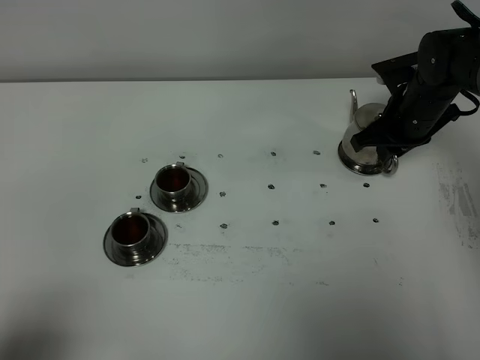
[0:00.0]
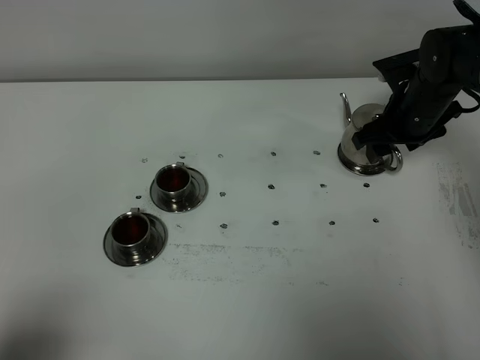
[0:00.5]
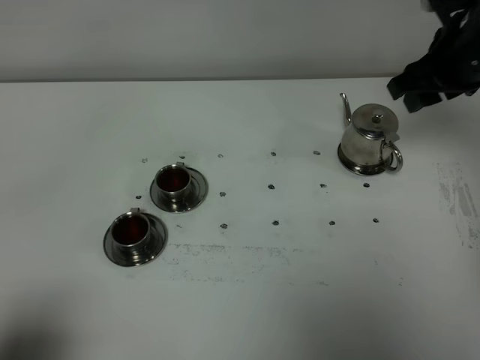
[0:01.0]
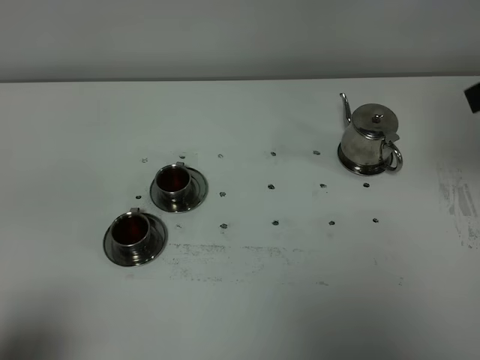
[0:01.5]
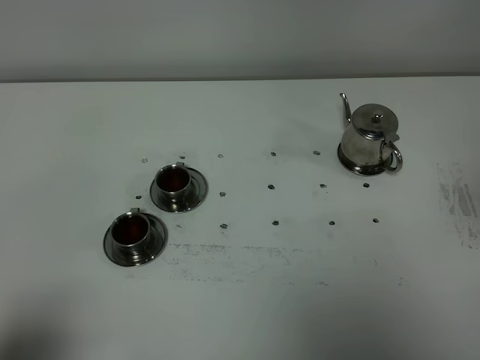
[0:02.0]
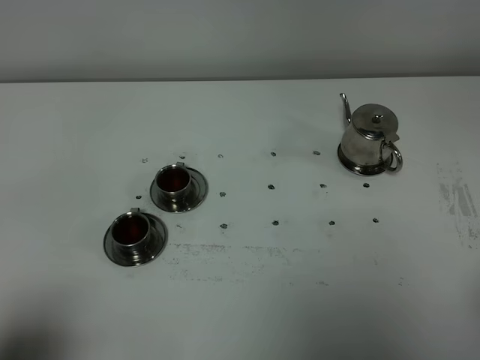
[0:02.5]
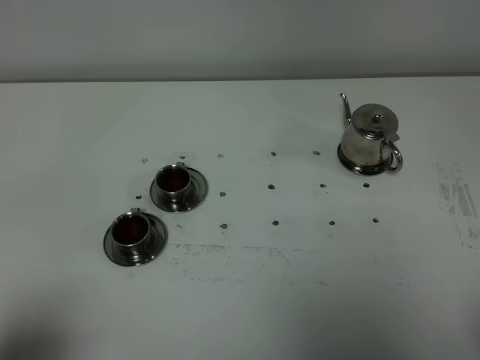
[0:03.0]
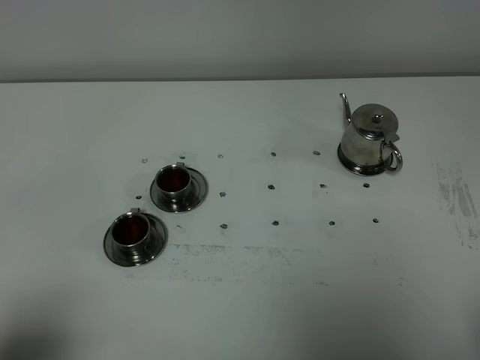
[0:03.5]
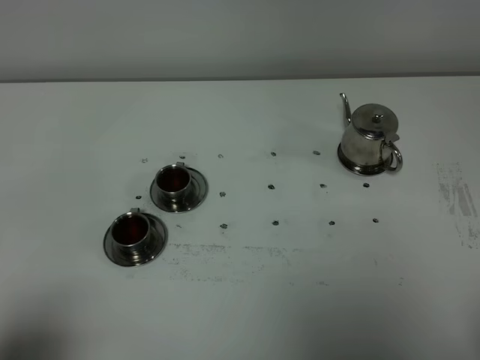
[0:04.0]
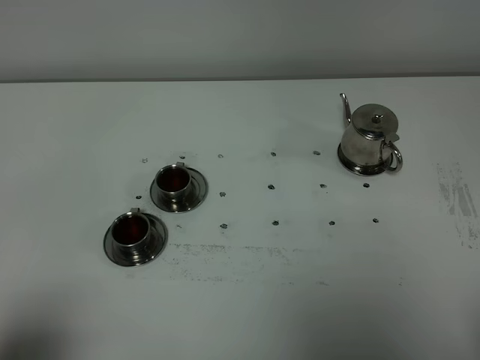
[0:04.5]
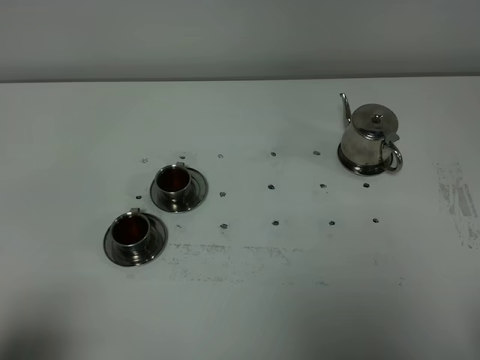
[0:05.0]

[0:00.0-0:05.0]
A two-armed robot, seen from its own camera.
Task of the whole recording: grasp the stainless steel teapot and pour the tea into the two stainless steel teacups one by one, put the stainless steel teapot back in its original place.
0:00.0 to 0:02.5: The right gripper shifts about 50 cm backward and upward, and opens and closes again.

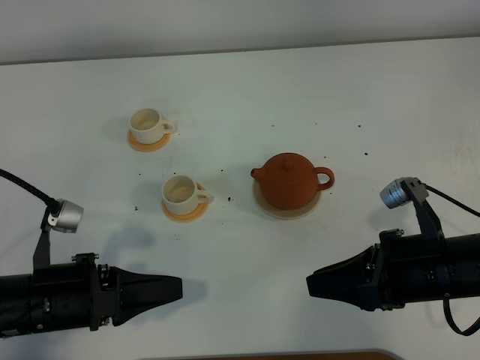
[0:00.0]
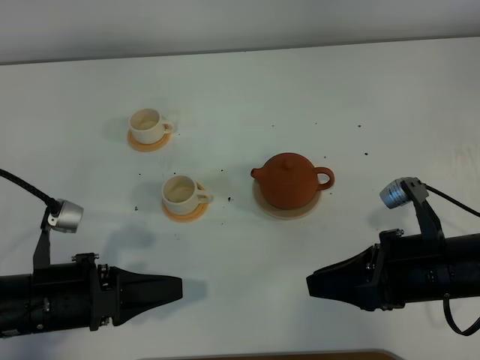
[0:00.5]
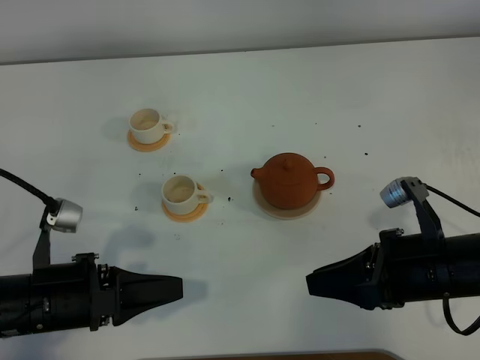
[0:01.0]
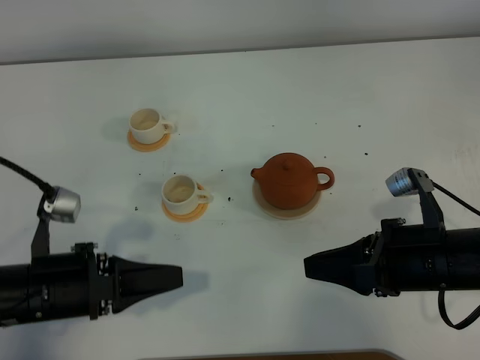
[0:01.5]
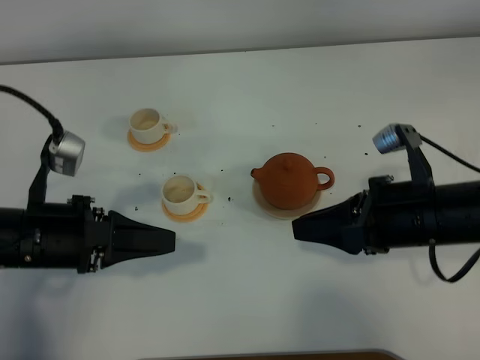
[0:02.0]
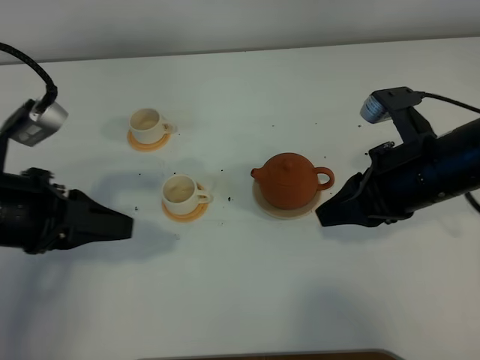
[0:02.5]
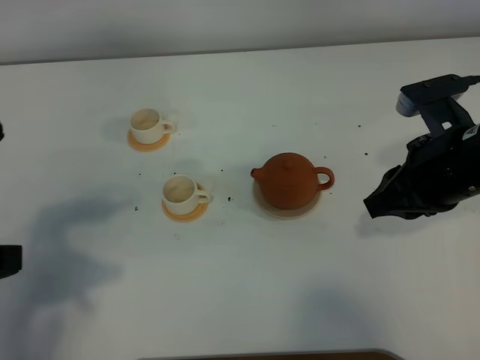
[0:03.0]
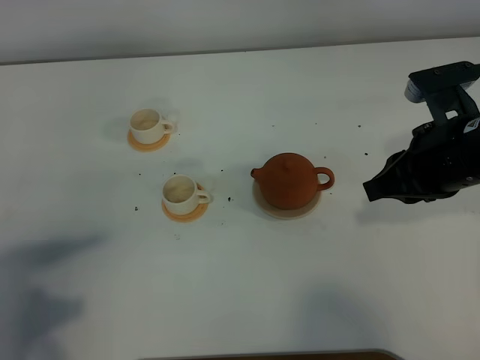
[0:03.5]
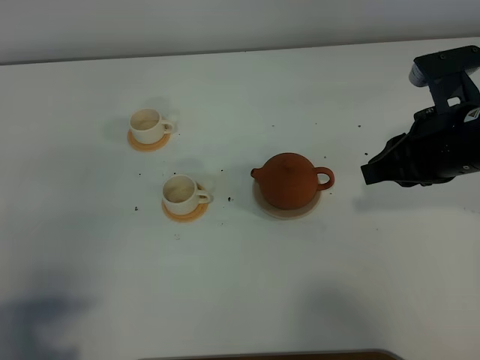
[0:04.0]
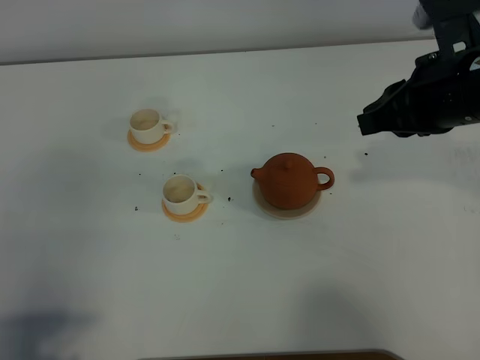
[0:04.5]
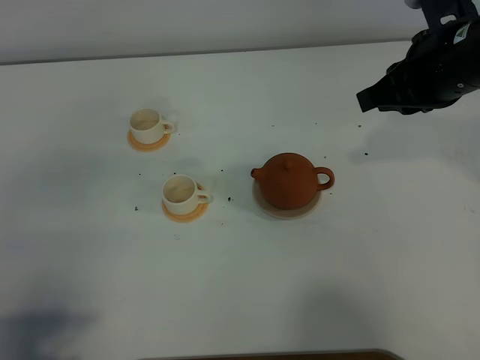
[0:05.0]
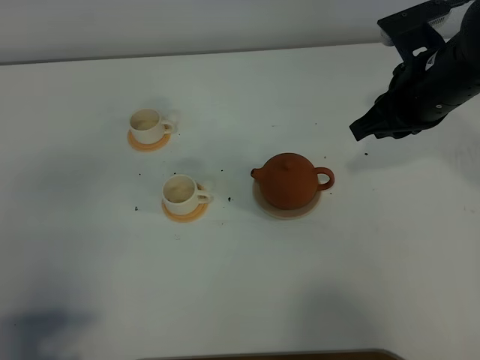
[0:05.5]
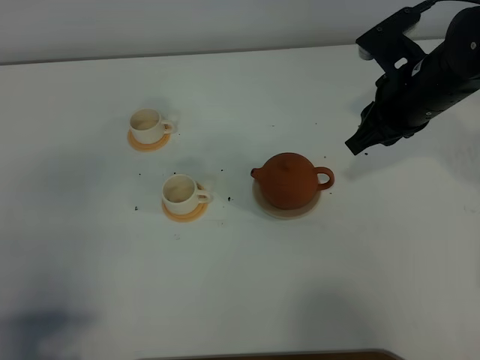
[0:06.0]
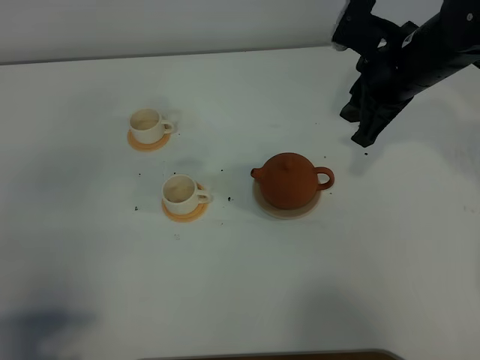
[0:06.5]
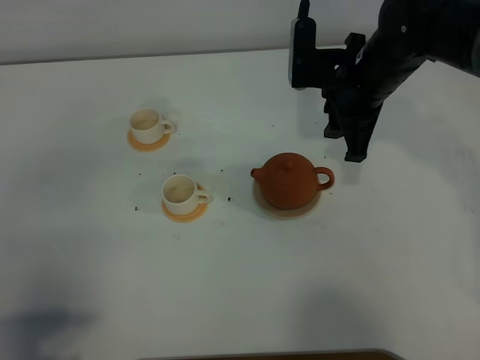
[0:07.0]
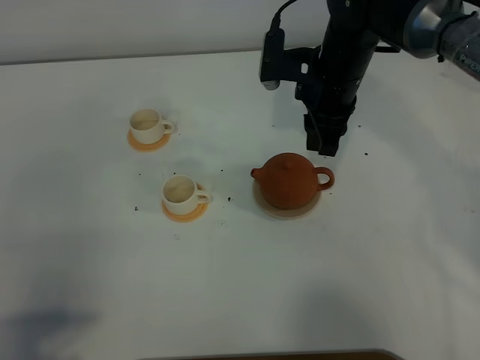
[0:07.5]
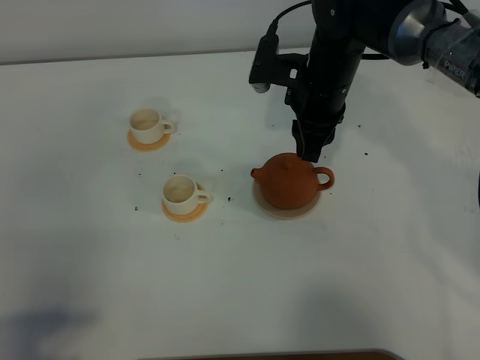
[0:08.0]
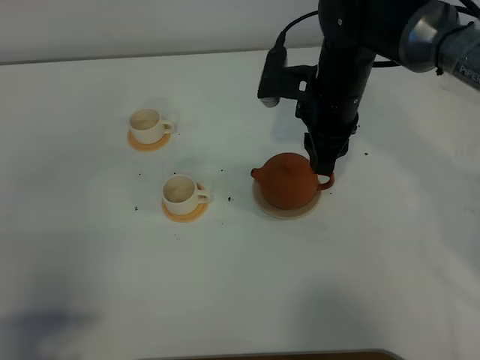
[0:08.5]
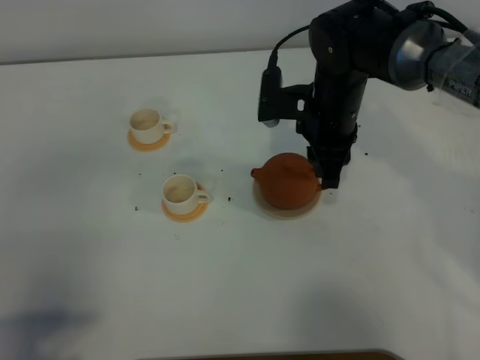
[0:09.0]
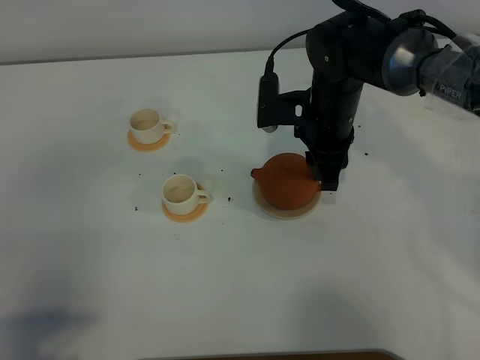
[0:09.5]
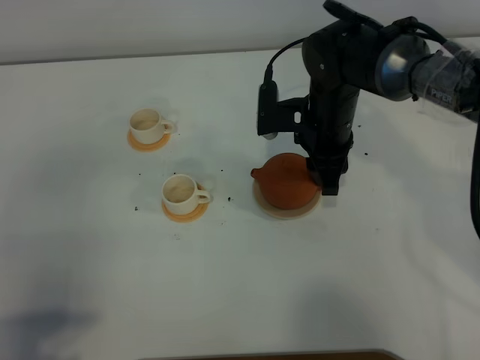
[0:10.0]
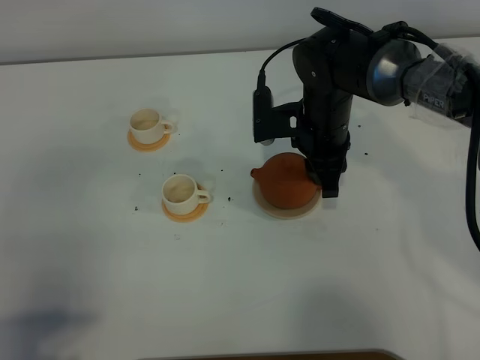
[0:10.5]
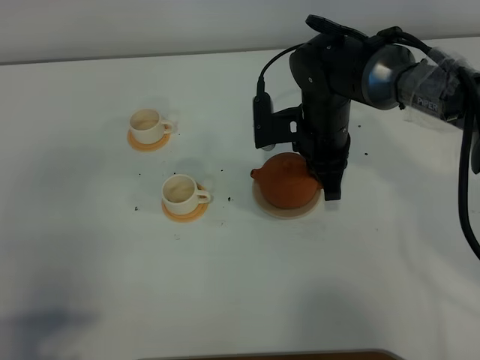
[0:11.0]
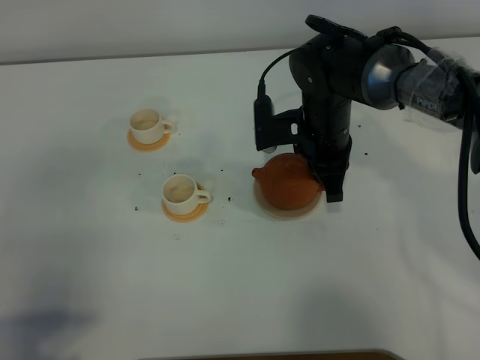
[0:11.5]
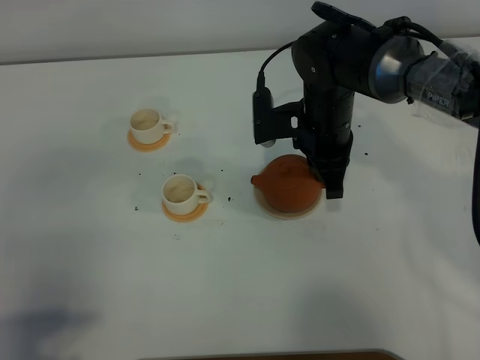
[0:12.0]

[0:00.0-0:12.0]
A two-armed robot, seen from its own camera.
Task of the whole recording: grasp the brown teapot and pour the tea into the two white teacups one by one, put the brown teapot back in its original place.
0:00.0 to 0:02.0: The left gripper goes about 5 cm forward; the right gripper moves about 5 cm.
0:02.0 to 0:04.0: The right gripper goes about 10 cm forward and upward. The left gripper goes approximately 20 cm backward and upward.
0:04.0 to 0:06.0: The right gripper travels forward by about 10 cm.
0:06.0 to 0:08.0: The right gripper travels to the left by about 10 cm.
0:08.0 to 0:10.0: There are only small adjustments of the grippers.
0:10.0 to 0:12.0: The right gripper closes its fingers.

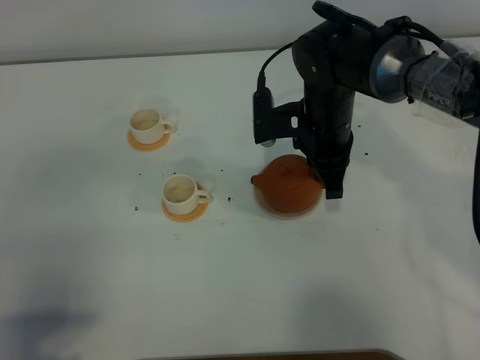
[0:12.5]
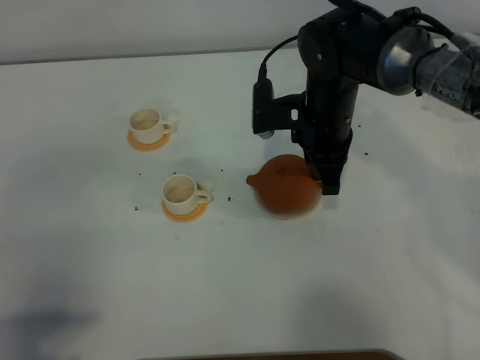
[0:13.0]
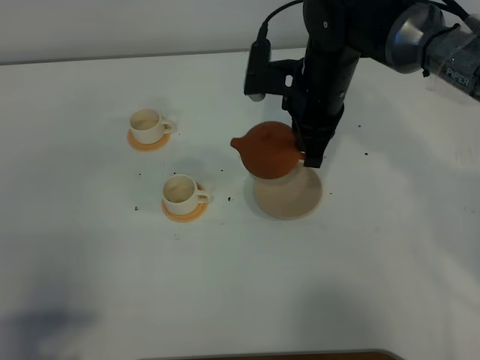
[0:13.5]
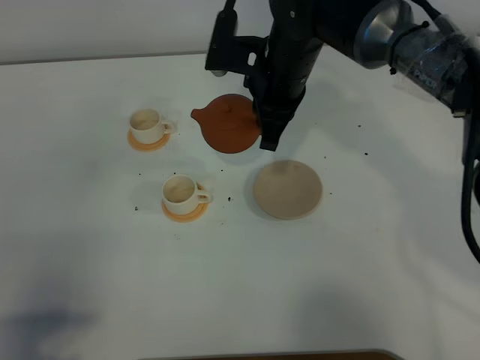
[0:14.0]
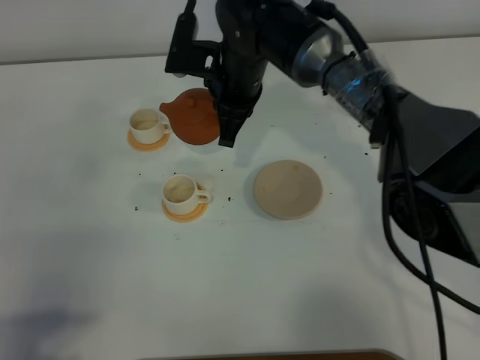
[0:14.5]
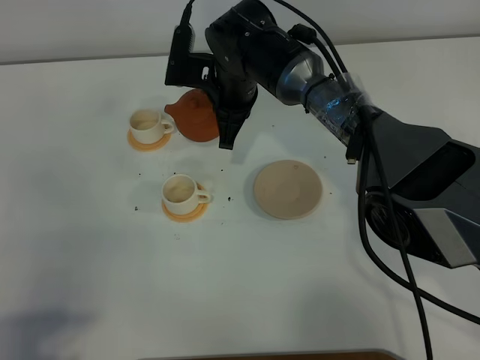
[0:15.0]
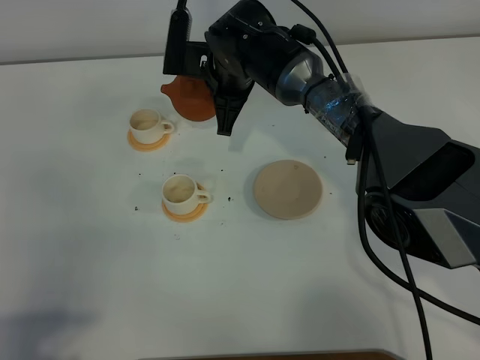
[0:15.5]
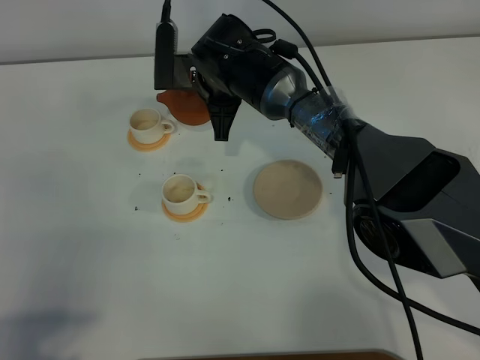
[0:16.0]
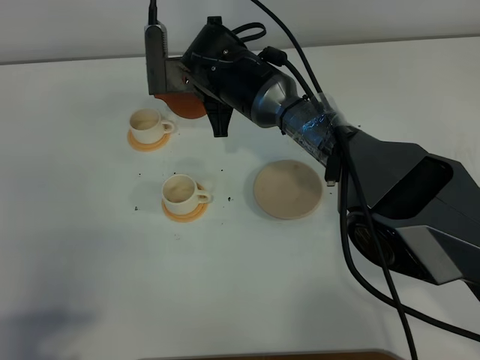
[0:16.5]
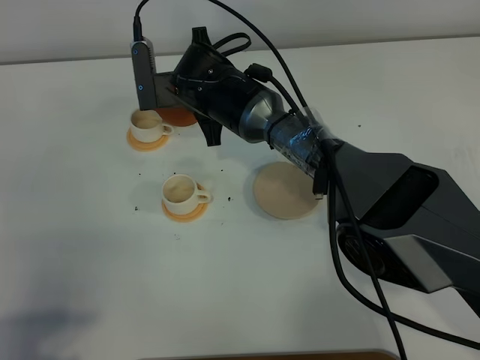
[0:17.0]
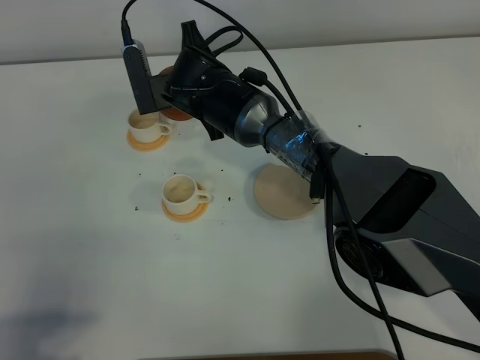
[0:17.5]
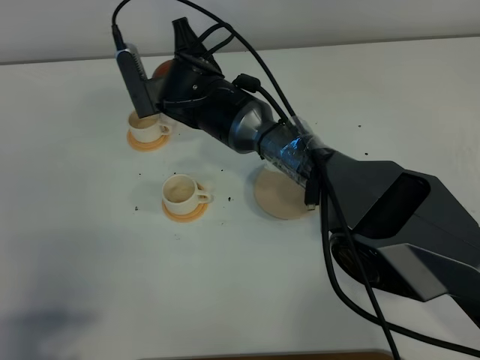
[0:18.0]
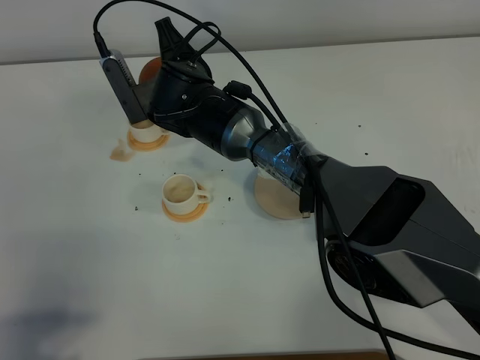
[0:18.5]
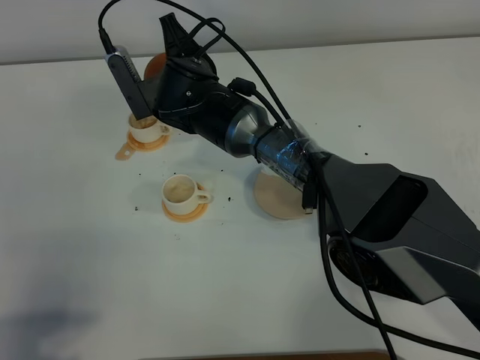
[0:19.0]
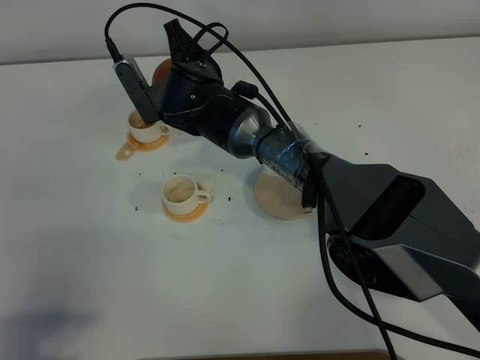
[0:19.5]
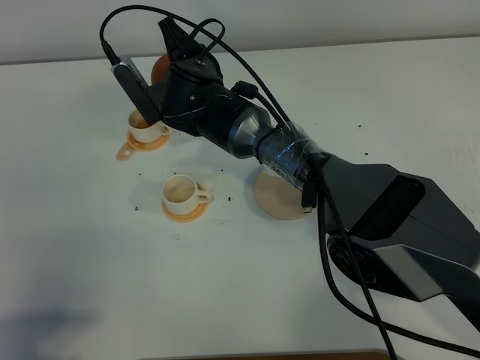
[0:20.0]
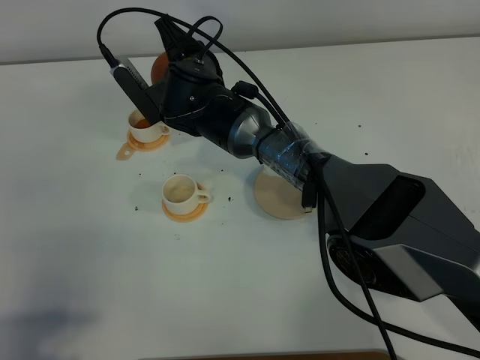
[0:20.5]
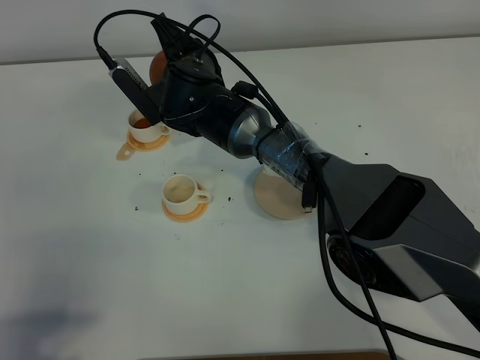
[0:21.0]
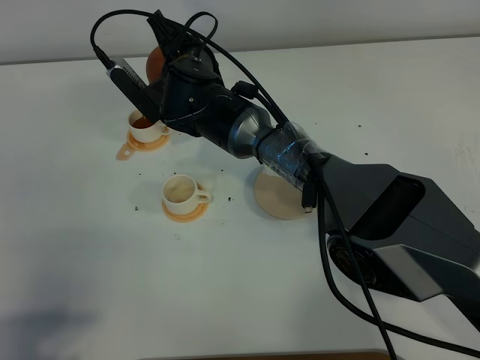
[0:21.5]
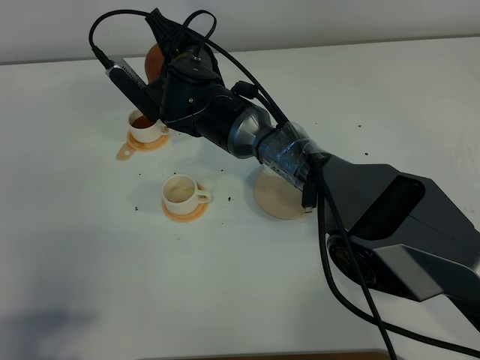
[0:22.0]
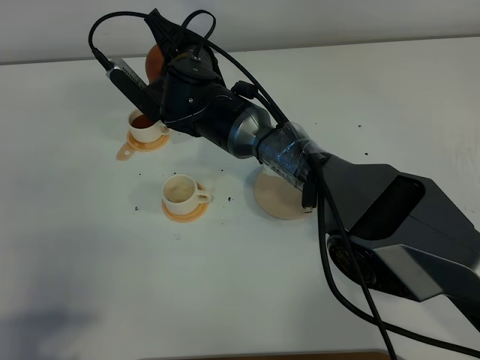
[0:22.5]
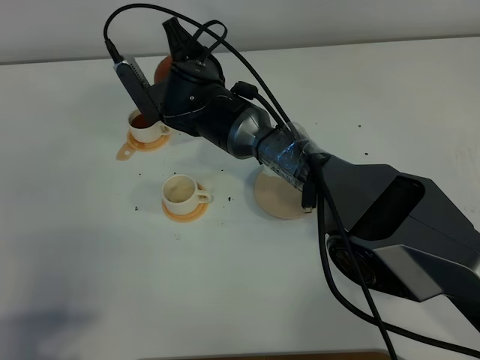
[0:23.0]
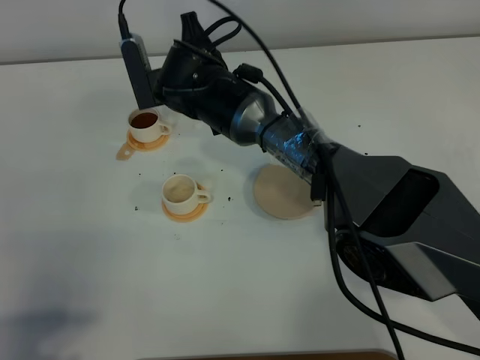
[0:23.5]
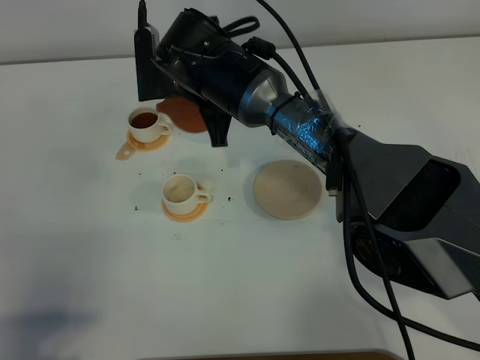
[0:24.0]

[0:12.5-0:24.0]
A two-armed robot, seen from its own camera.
Task of the whole recording: grasp the brown teapot and pour the tea into the two white teacups one by one, put the brown teapot back in its original place.
0:12.5 to 0:14.5: The right gripper is displaced to the left by some 10 cm.
0:18.5 to 0:22.0: There are only small adjustments of the grippers.
0:22.0 to 0:24.0: The right gripper changes place by approximately 5 cm.
